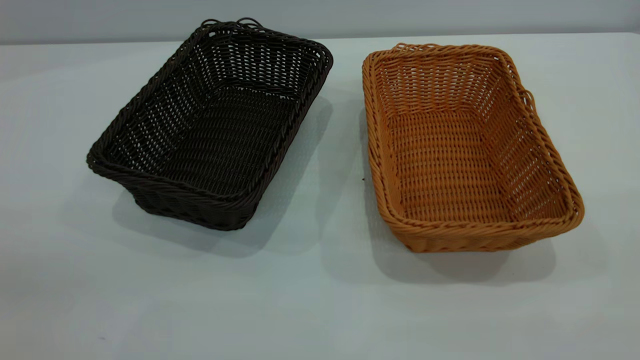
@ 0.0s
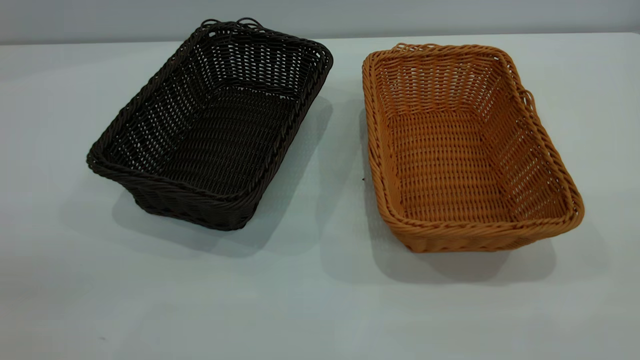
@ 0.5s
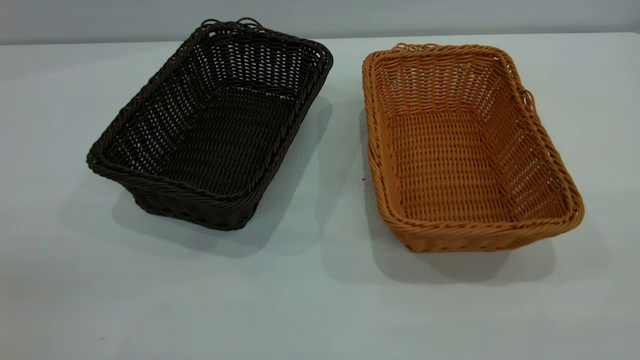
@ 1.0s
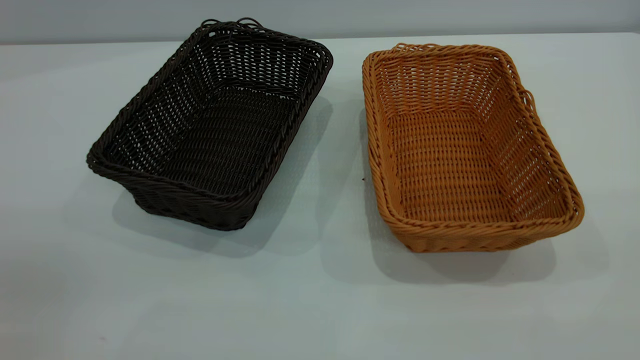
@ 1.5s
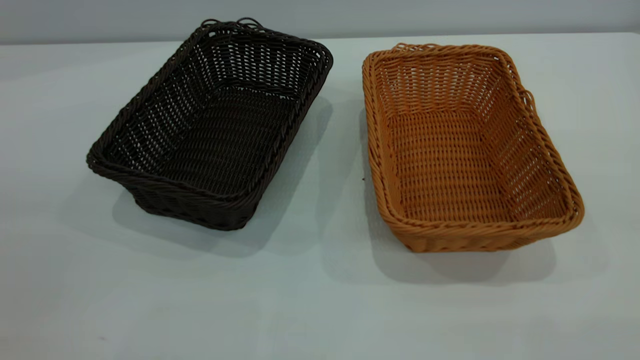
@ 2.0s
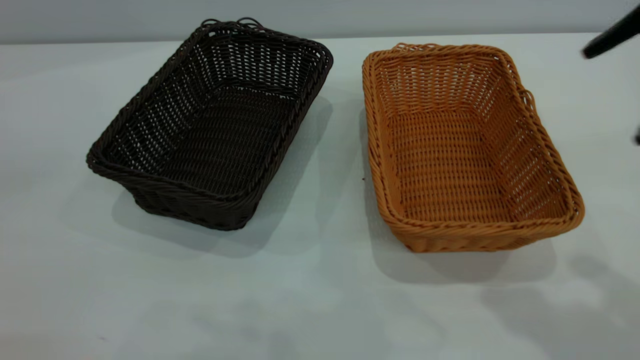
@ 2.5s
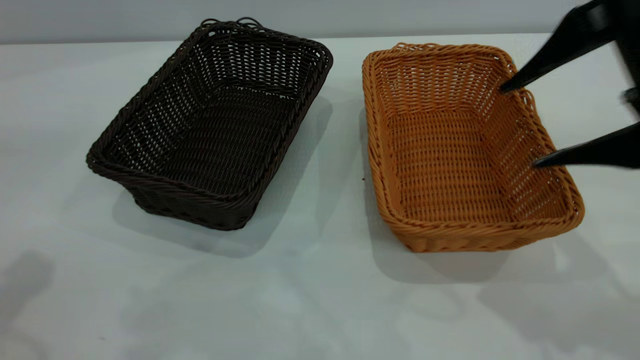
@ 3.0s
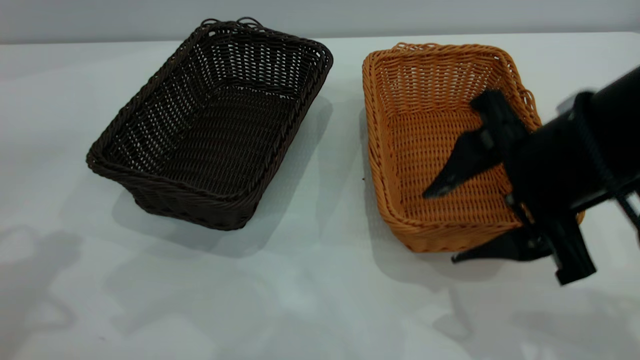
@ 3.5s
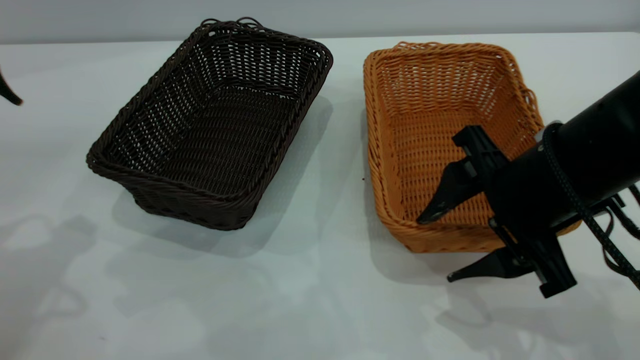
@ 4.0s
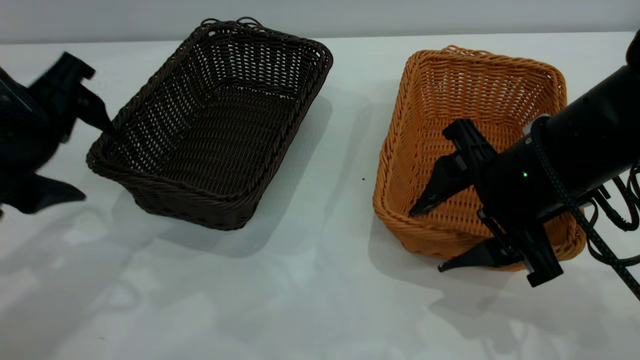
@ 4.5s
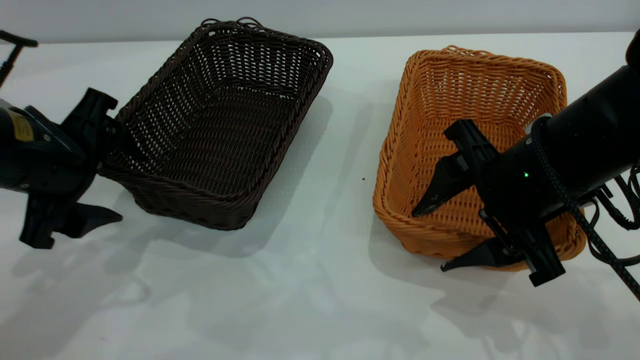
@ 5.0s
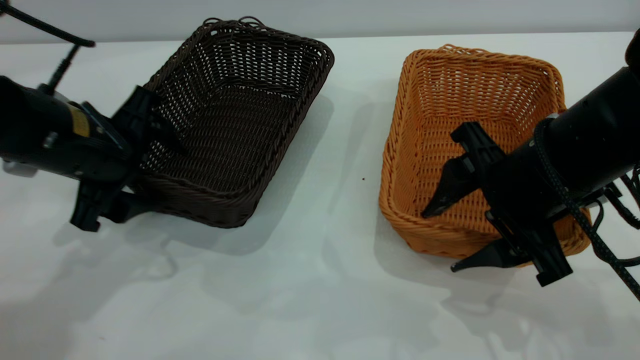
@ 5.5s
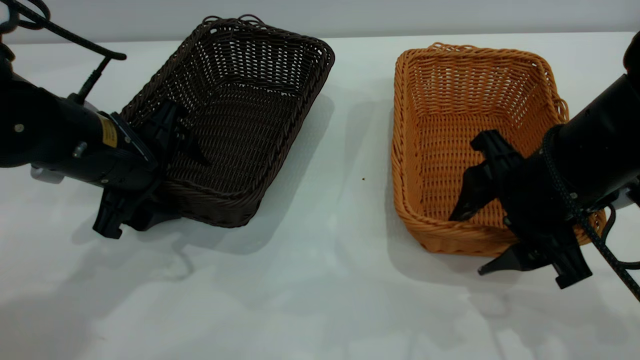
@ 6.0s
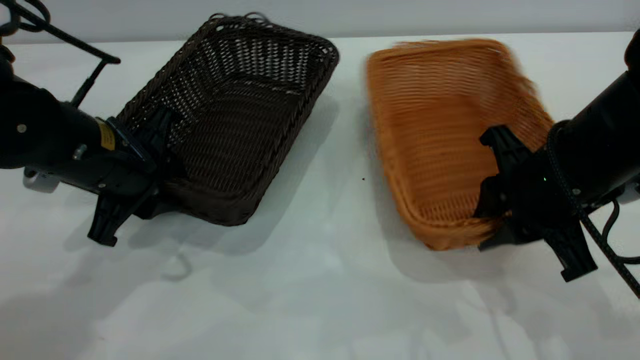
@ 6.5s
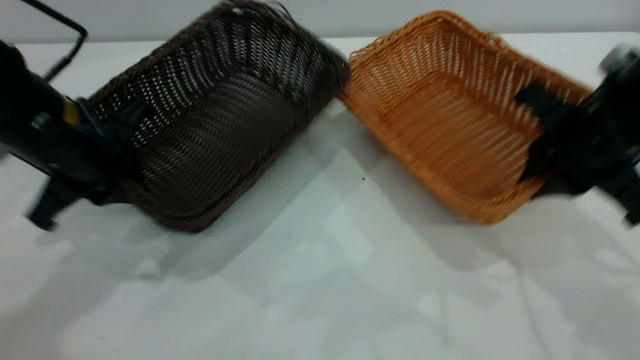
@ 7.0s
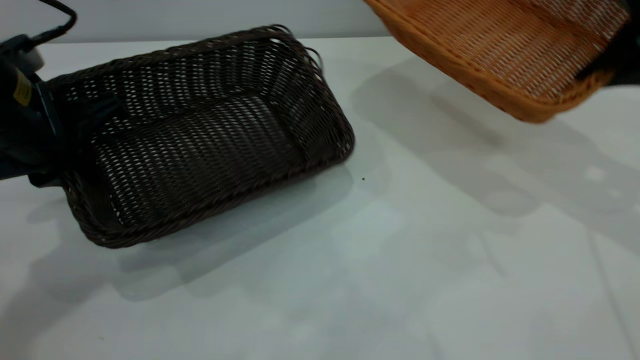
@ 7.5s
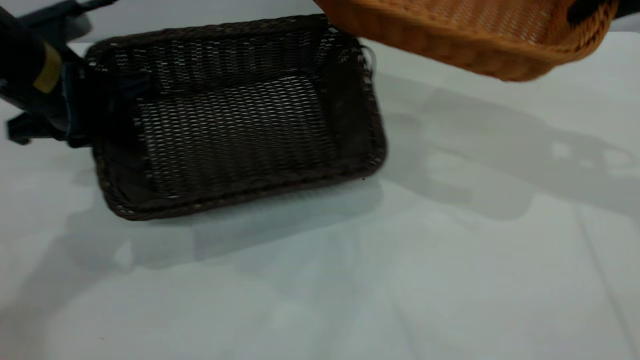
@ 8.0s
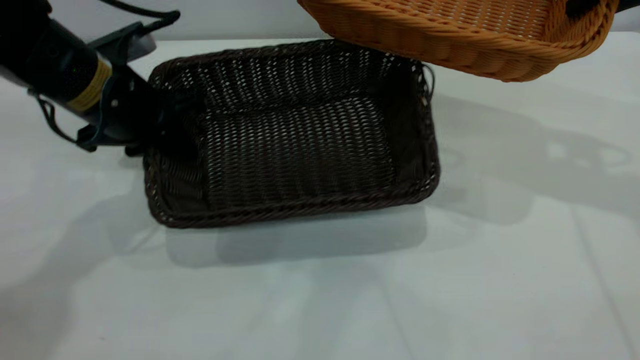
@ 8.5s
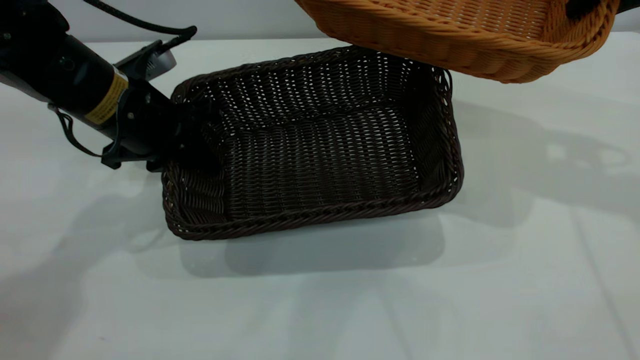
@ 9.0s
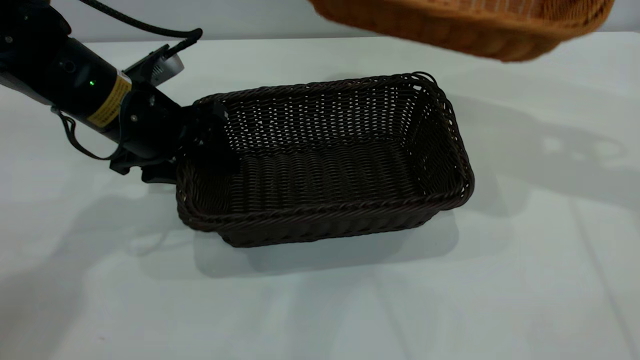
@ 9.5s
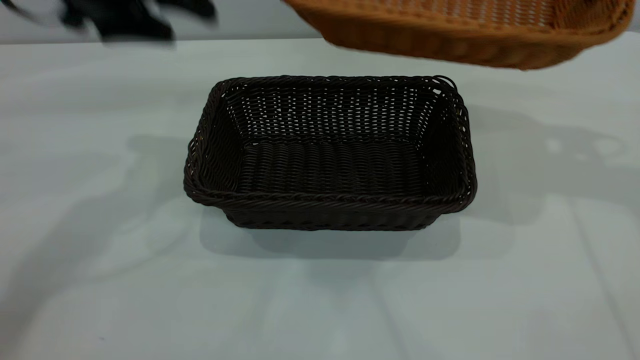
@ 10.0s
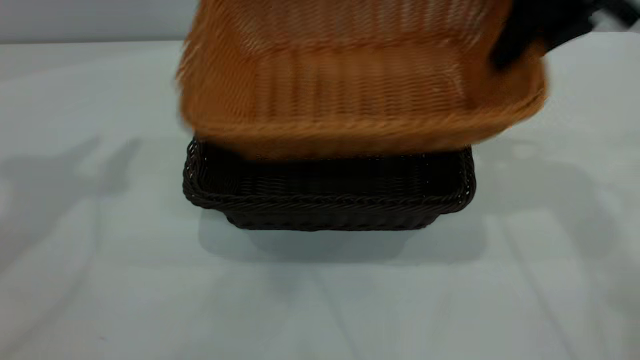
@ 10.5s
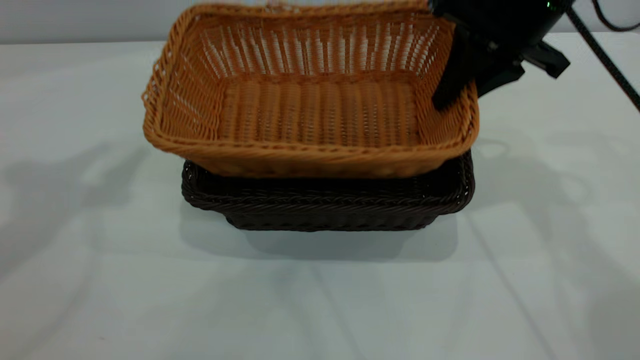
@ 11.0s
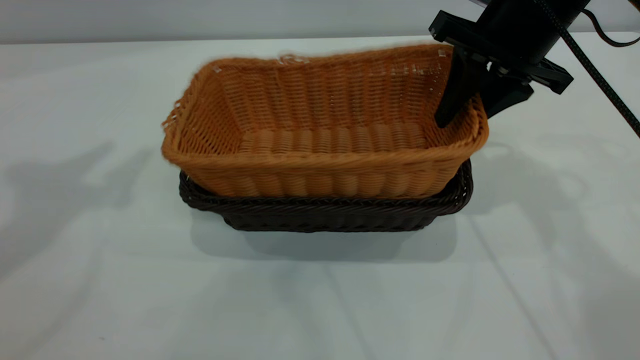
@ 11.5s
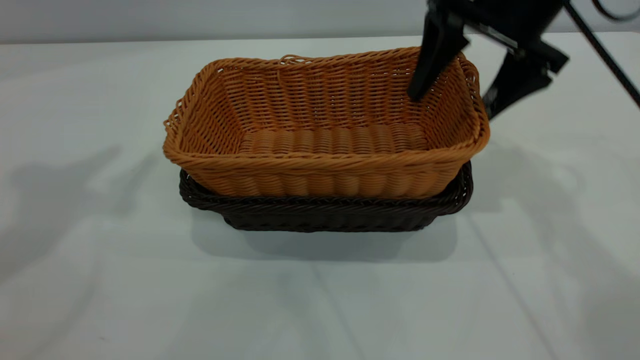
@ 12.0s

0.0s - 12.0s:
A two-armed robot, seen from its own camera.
Task of the whole recording: the left gripper grasp the black basket and place it in the center of the table, the right gripper grasp the brown basket and place it inside the black one.
Step, 0.0s - 7.0s: Pick up the light basket with the right gripper.
Step, 7.5s - 9.5s: Move the dark basket to the center of view.
2.0s - 4.0s: The right gripper goes some 30 cm downward and forward.
4.0s - 6.0s: The left gripper shifts about 15 cm downward, to the right and forward.
6.0s - 8.0s: The right gripper heads upward, forward and to the right, covering some 20 cm, and closes. The left gripper changes place by approximately 5 cm, and closes.
8.0s - 10.0s: The left gripper shifts roughly 10 cm upward, and opens.
10.0s - 12.0s: The right gripper is displaced to the left and downward by about 15 cm, and opens up; the left gripper travels upward and backward by about 15 cm.
